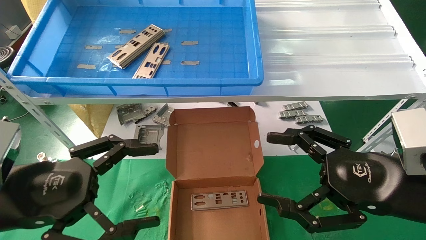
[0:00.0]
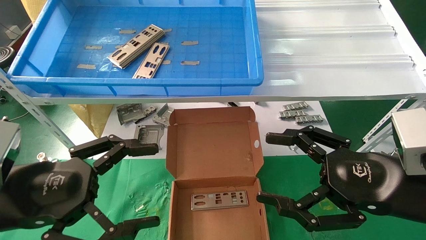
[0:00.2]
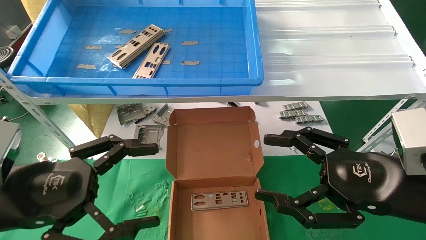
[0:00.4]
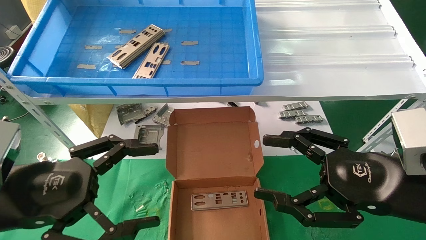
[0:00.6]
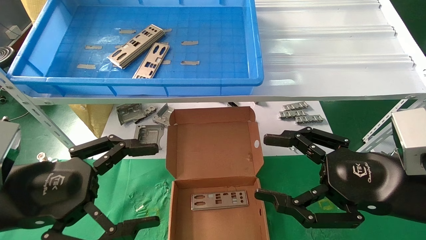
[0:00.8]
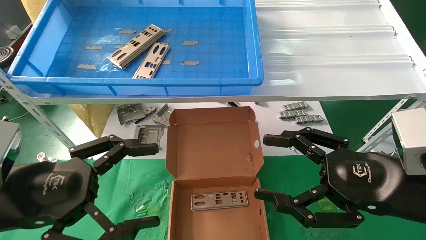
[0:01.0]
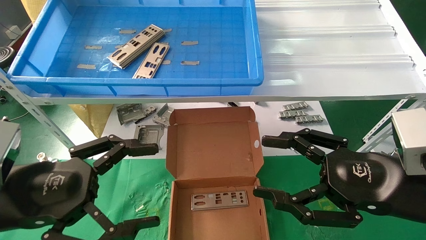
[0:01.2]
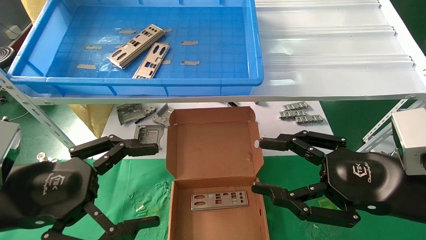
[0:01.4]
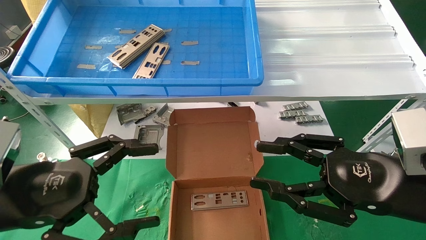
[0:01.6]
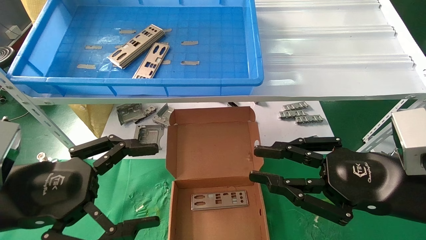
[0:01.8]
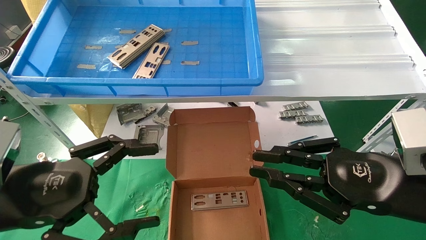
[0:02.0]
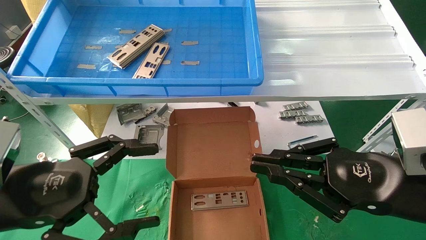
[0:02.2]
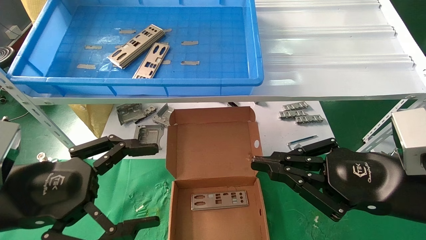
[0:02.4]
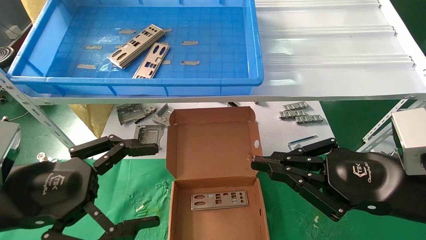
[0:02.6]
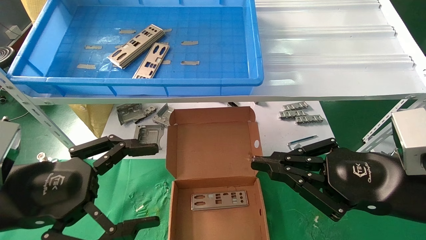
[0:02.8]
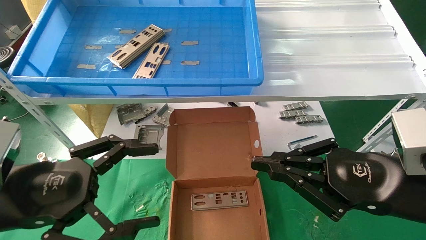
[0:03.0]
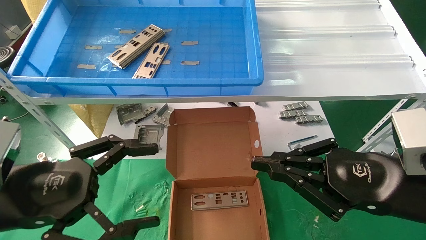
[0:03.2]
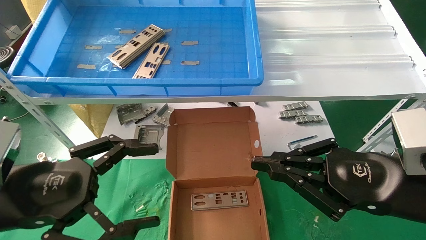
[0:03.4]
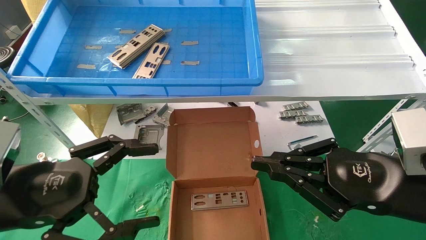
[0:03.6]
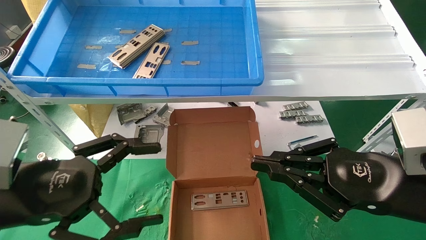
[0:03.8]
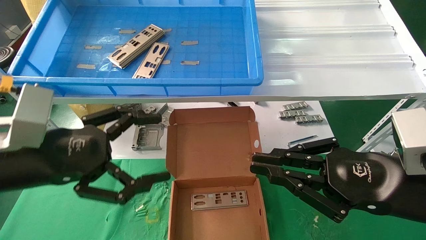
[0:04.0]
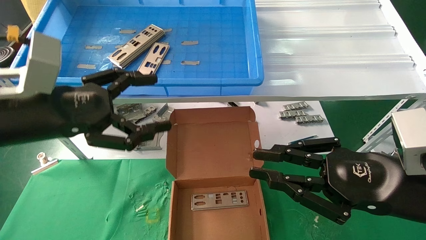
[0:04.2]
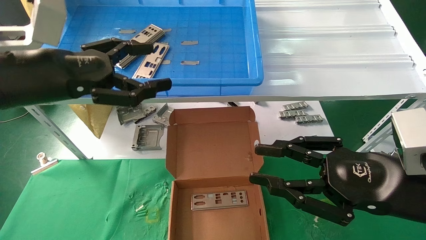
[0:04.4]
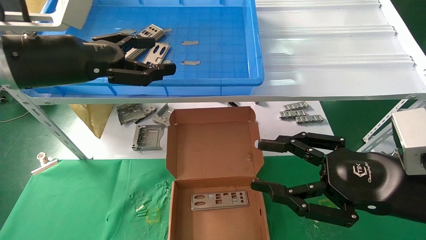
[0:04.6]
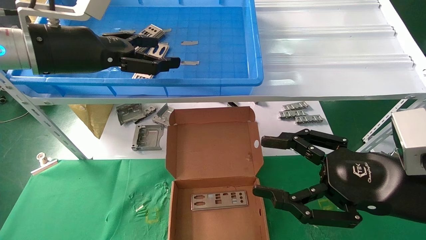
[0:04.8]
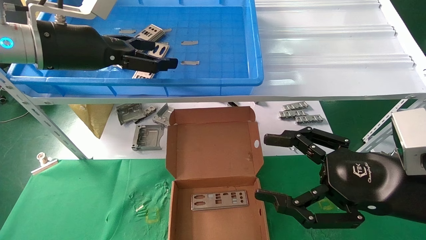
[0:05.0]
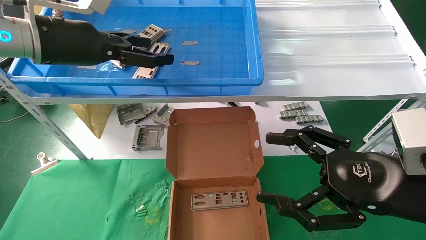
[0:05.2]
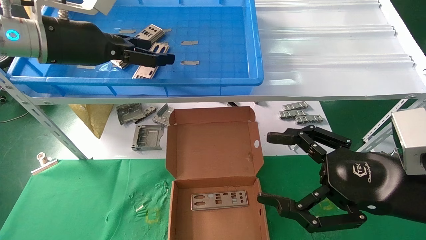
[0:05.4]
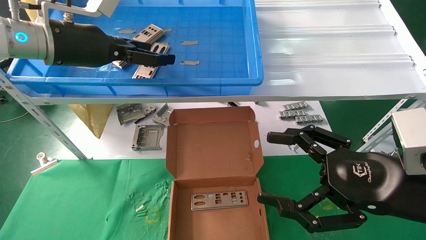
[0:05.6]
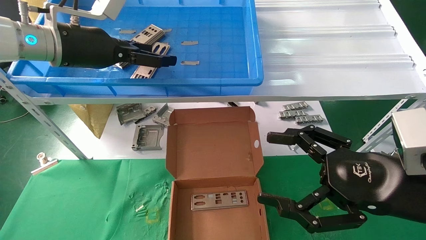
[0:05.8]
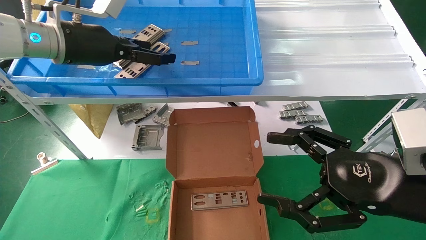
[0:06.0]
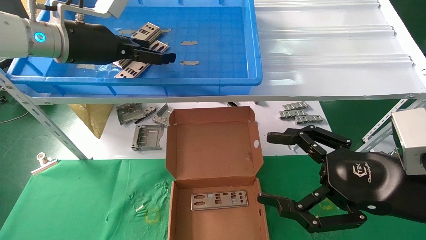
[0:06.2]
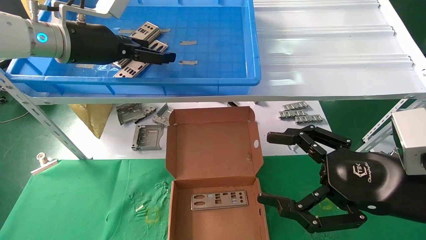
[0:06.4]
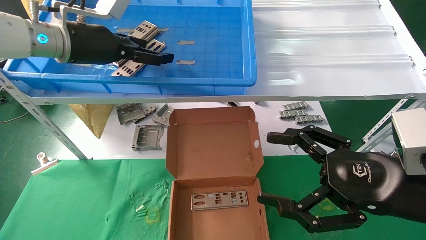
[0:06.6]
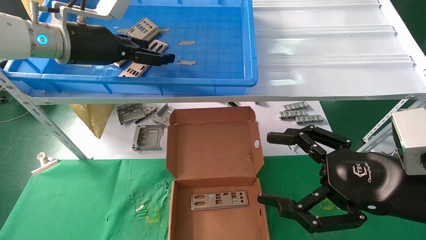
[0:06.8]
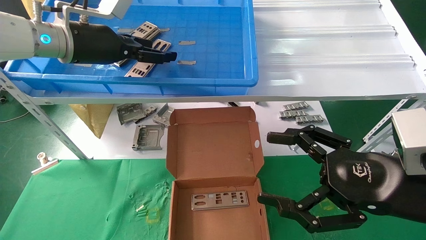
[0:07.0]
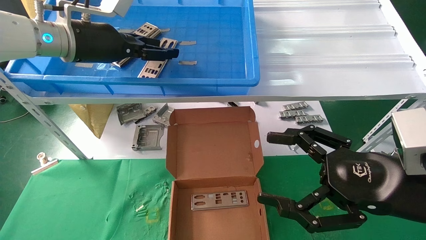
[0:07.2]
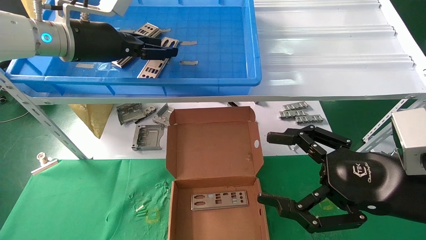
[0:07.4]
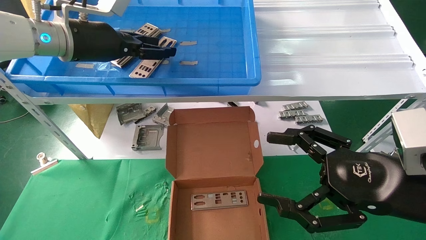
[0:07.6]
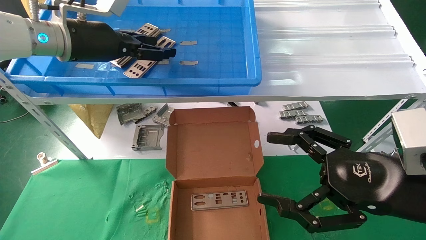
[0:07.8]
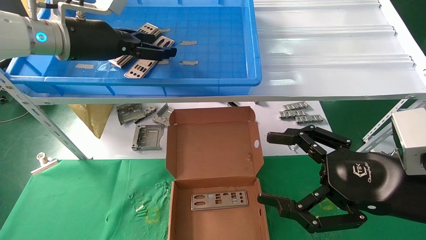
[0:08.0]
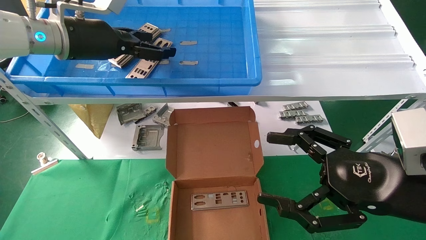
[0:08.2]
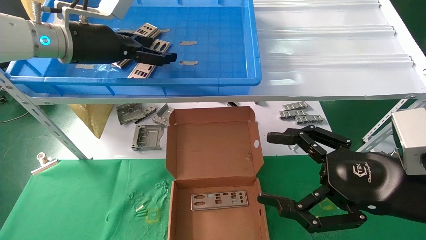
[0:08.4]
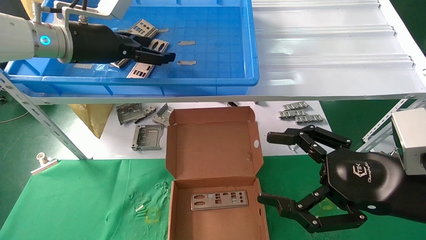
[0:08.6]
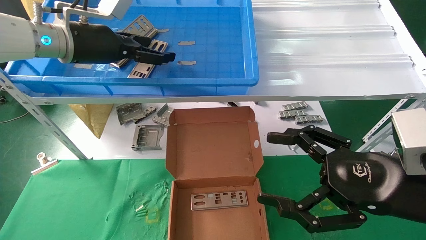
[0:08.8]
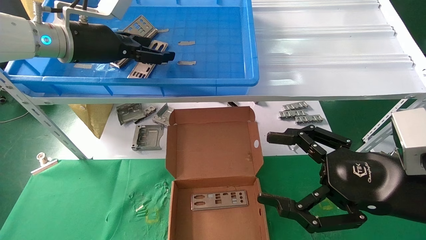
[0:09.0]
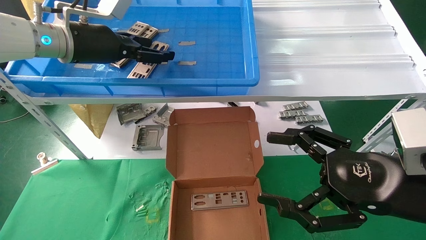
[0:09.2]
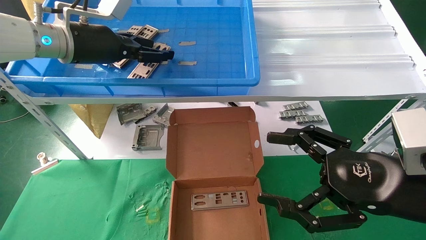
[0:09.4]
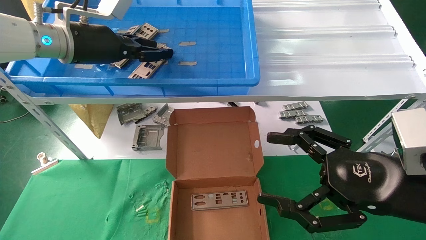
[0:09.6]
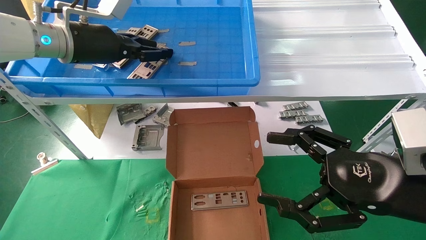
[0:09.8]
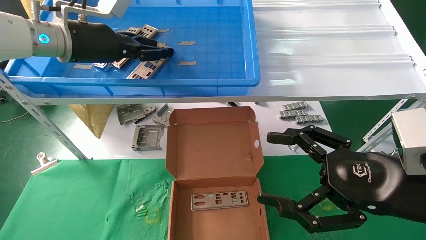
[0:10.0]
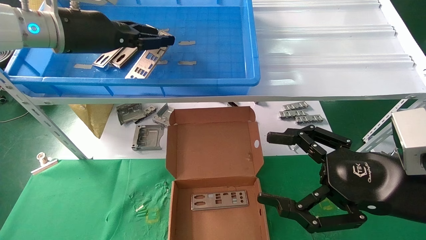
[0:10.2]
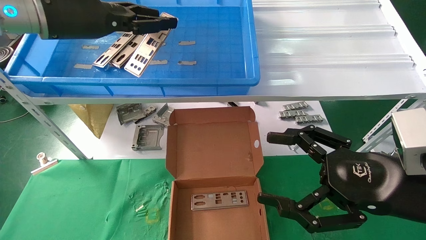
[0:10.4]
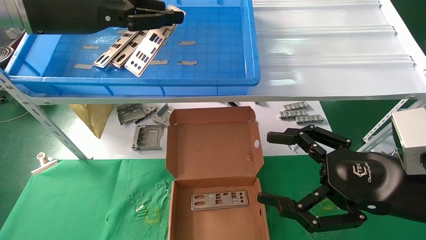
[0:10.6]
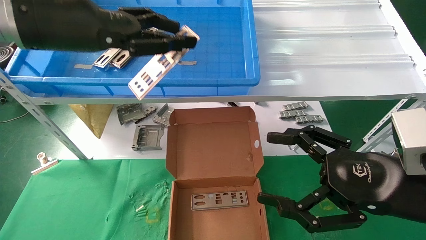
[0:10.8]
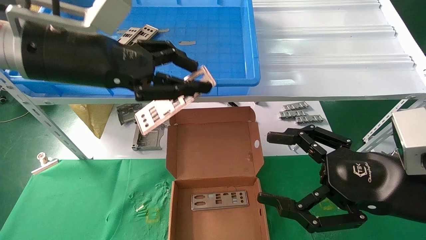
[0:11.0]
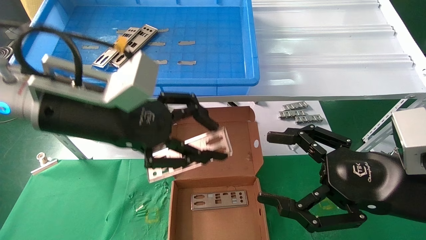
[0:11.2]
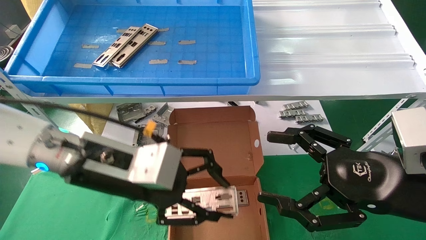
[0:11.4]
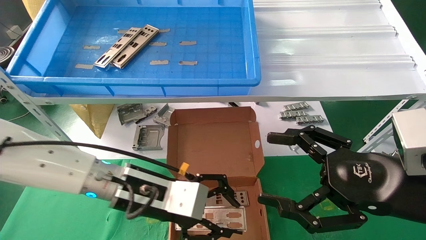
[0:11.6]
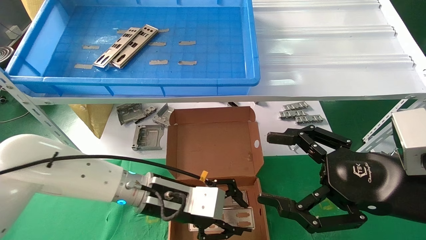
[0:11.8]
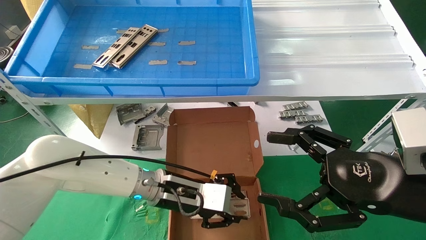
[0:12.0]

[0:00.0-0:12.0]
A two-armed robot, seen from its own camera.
Task of the whole recording: pick up the parts on the tray and put them in the cardboard box.
Step, 0:04.2 to 0:10.2: Pick up the IO bracket from the container box.
0:00.0 to 0:01.6: The right gripper closes up.
0:01.6 to 0:03.0: The right gripper closes up.
0:03.0 to 0:04.4: The left gripper travels upward and forward by approximately 15 cm.
0:04.4 to 0:06.0: The right gripper opens its fingers. The left gripper is displaced forward and upward by some 10 cm.
0:06.0 to 0:07.6: The left gripper closes its fingers.
0:07.6 to 0:09.0: The left gripper opens.
0:09.0 to 0:10.4: The left gripper changes place by roughly 5 cm, and closes its fingers.
0:10.4 to 0:12.0: The left gripper is displaced downward and to the right by about 35 cm.

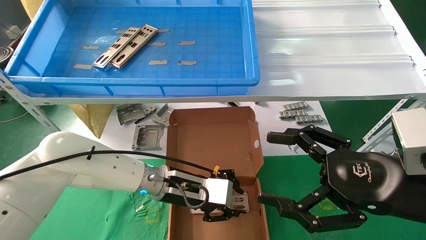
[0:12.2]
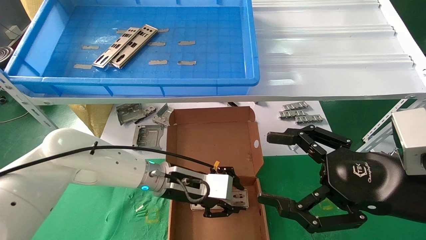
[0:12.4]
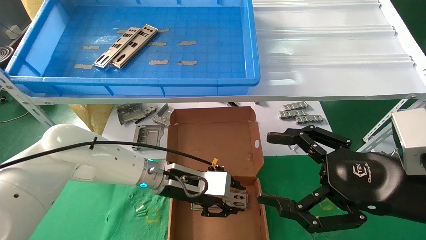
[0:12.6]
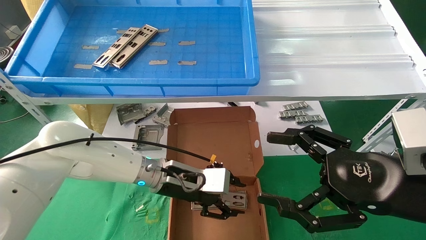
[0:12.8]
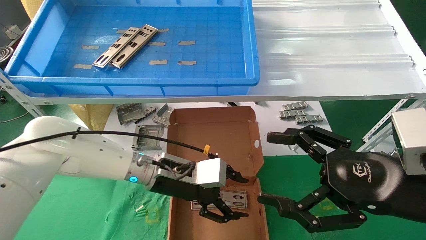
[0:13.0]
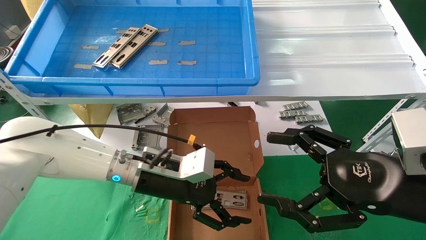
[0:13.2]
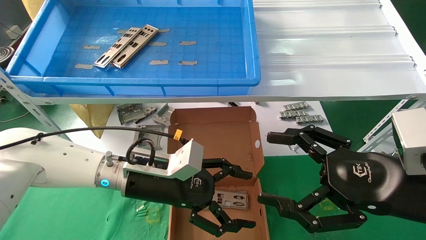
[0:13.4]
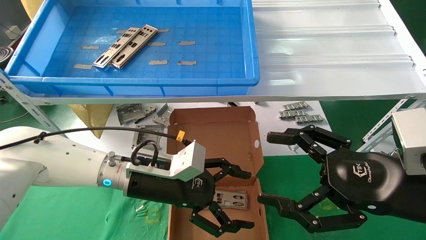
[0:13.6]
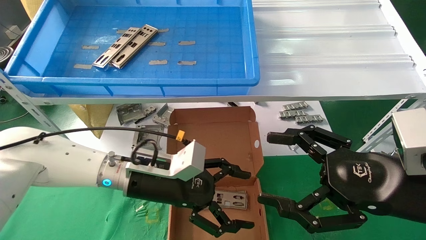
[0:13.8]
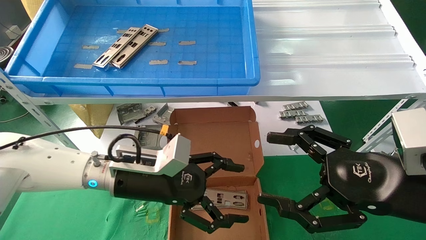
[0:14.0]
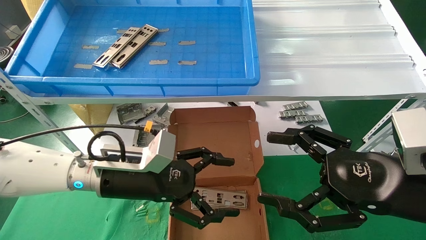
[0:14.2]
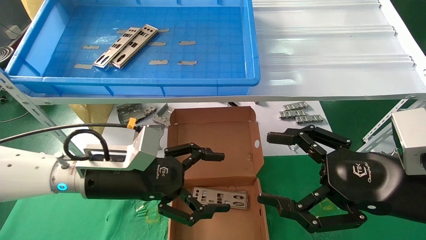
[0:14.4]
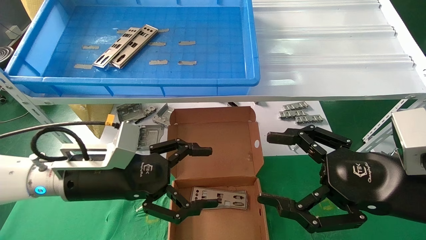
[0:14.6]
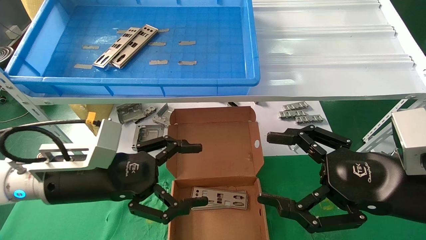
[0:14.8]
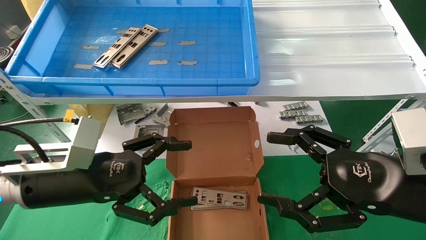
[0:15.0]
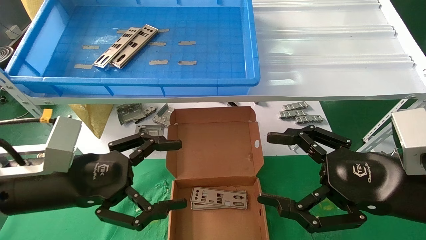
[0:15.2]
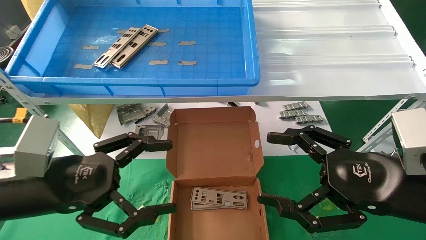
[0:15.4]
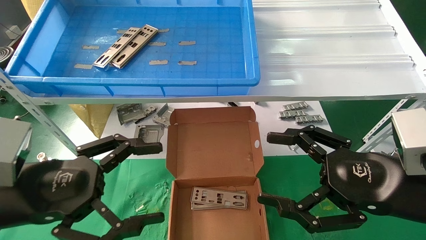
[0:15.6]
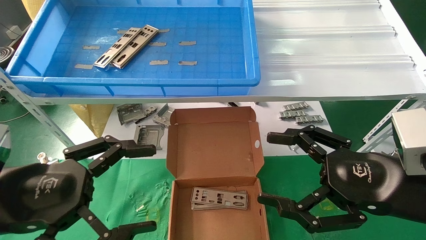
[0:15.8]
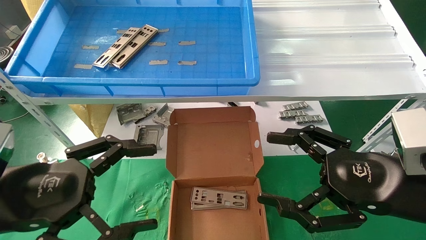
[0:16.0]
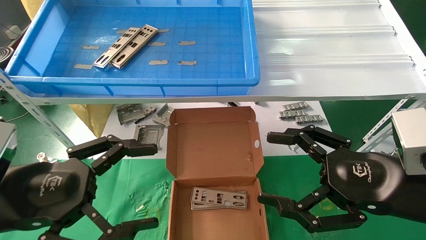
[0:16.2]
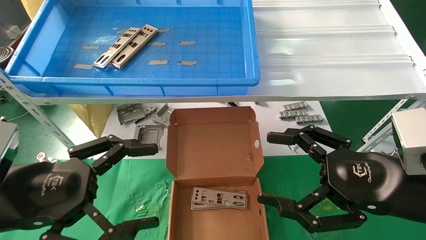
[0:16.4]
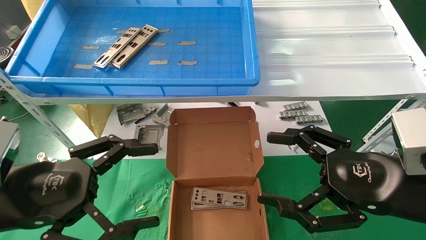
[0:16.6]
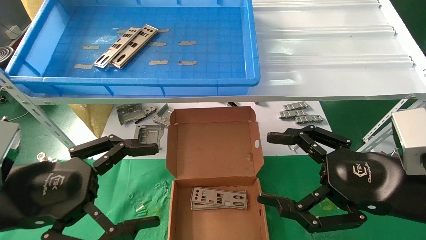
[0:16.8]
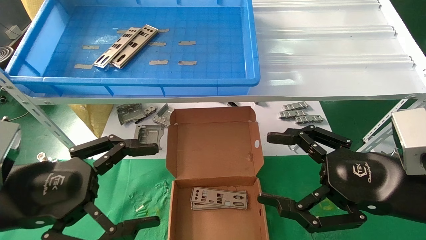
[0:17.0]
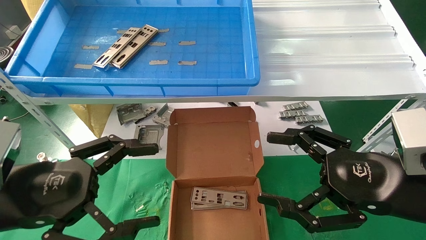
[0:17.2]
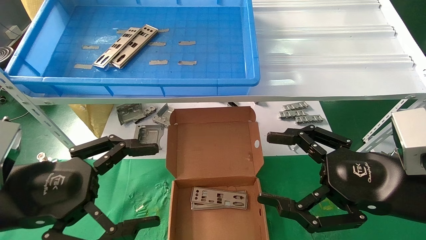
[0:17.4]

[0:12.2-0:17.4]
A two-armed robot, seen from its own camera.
Task of the whole recording: pick up the parts on the tray and put them in the cardboard box.
0:12.2 to 0:14.0: The left gripper heads to the left, covering roughly 5 cm, and opens its fingers.
0:14.0 to 0:15.6: The left gripper shifts roughly 20 cm to the left and backward.
0:15.6 to 0:17.4: The grippers make only small movements.
